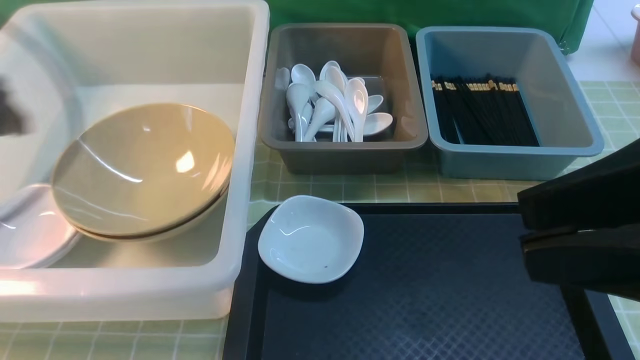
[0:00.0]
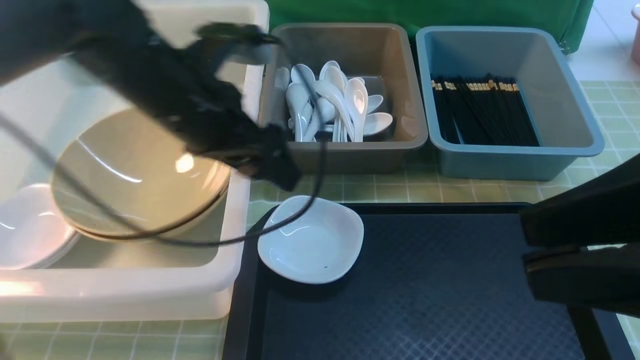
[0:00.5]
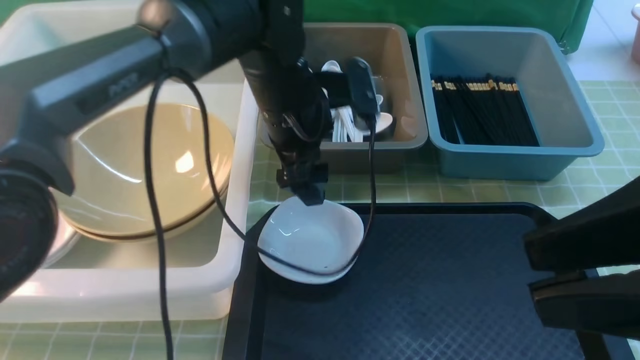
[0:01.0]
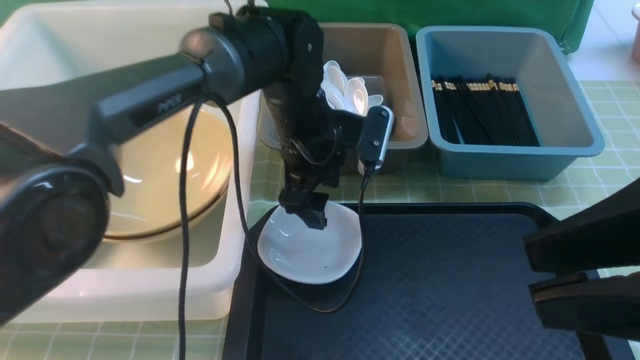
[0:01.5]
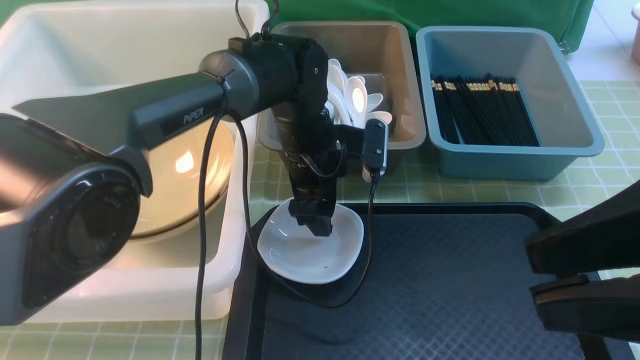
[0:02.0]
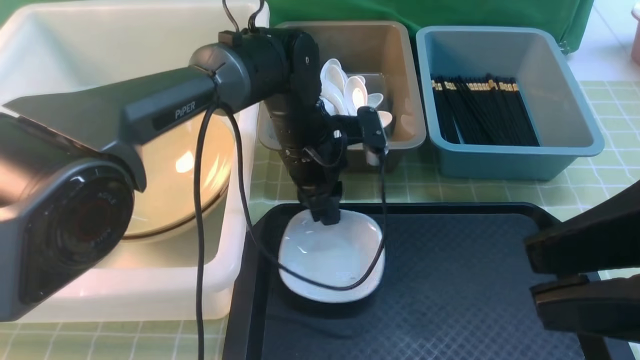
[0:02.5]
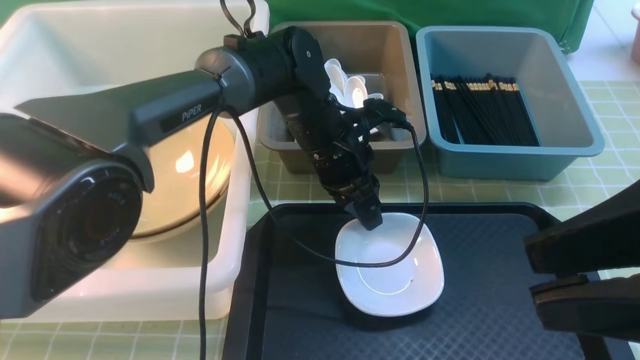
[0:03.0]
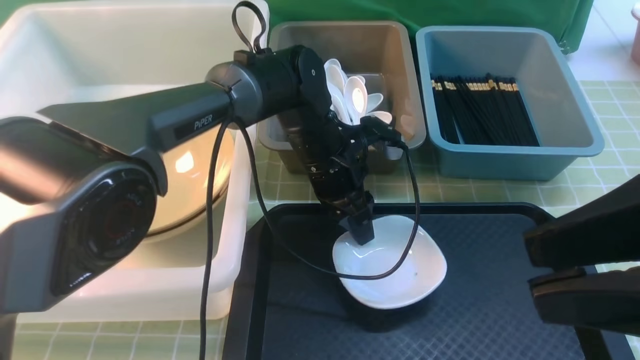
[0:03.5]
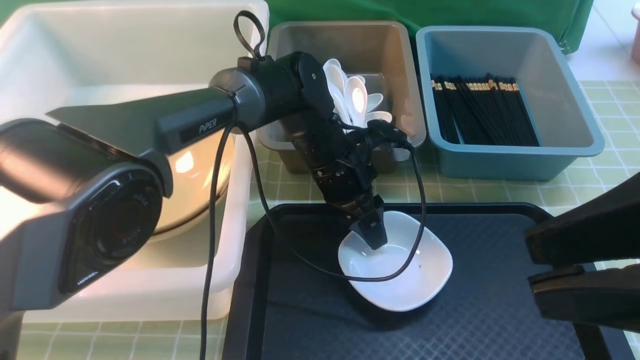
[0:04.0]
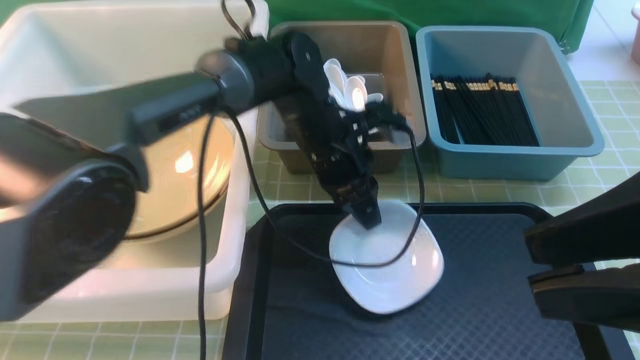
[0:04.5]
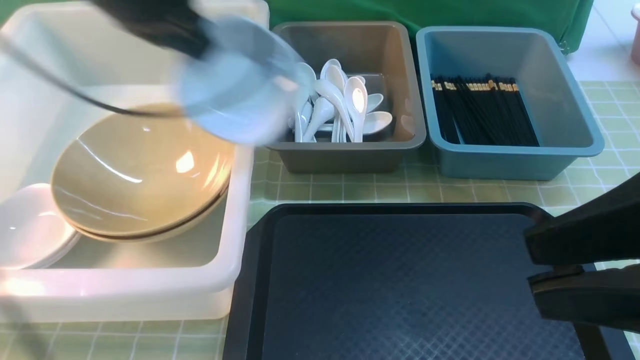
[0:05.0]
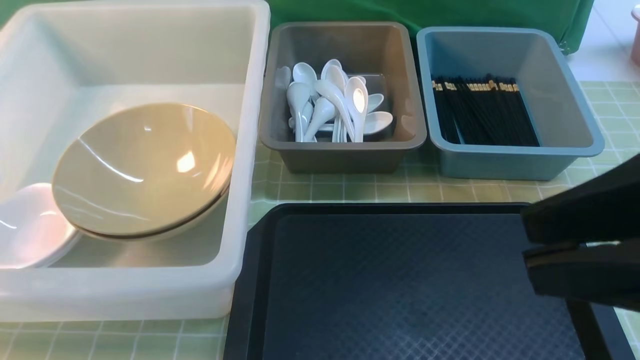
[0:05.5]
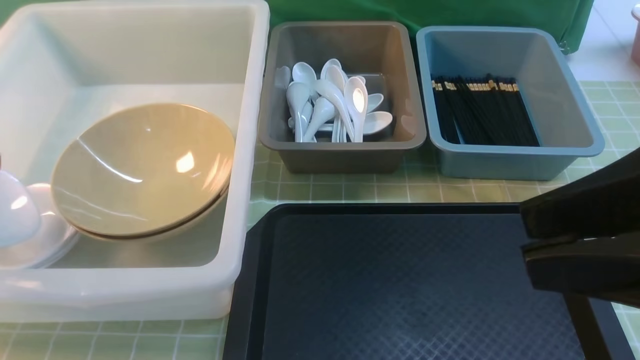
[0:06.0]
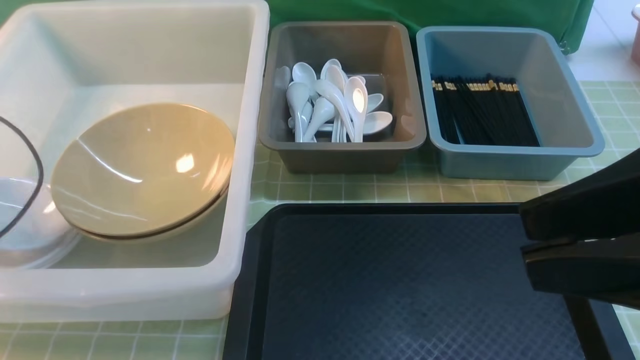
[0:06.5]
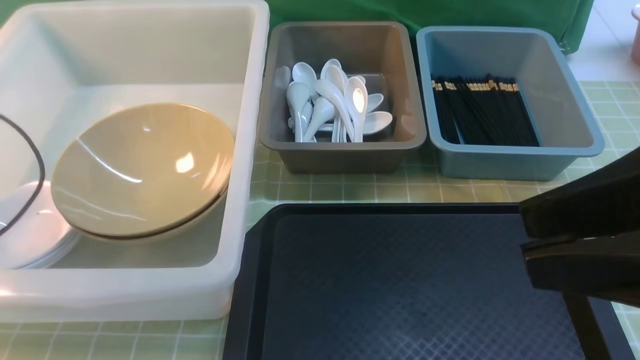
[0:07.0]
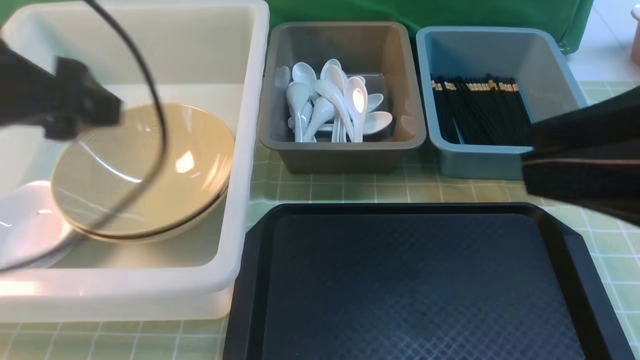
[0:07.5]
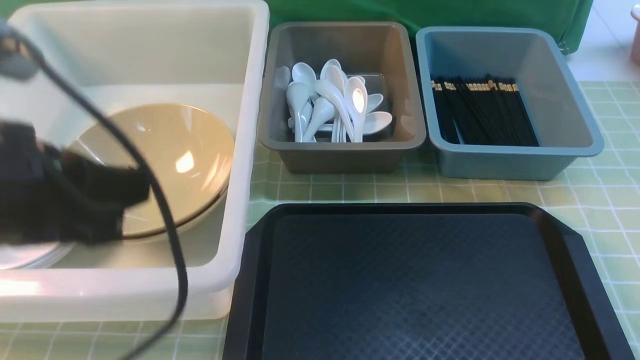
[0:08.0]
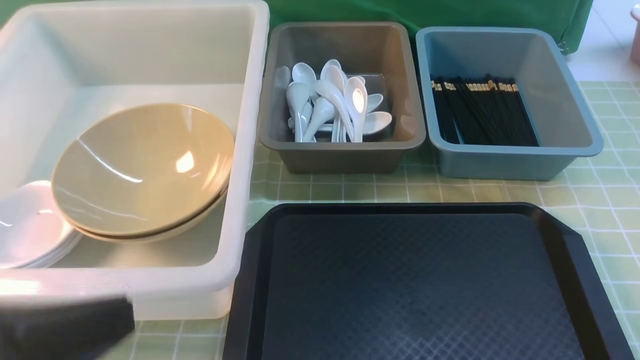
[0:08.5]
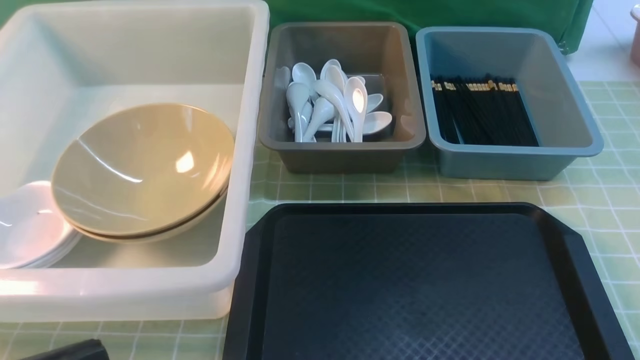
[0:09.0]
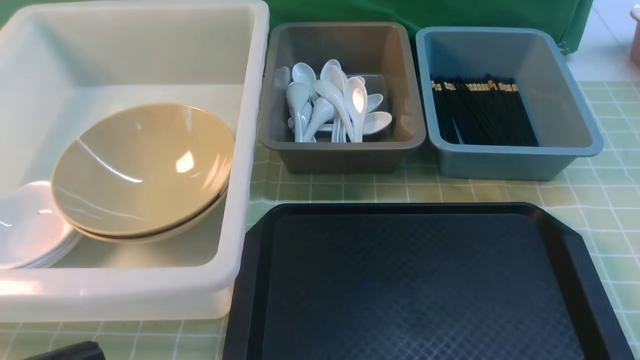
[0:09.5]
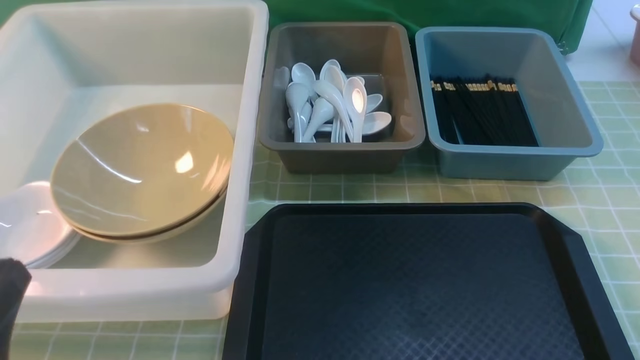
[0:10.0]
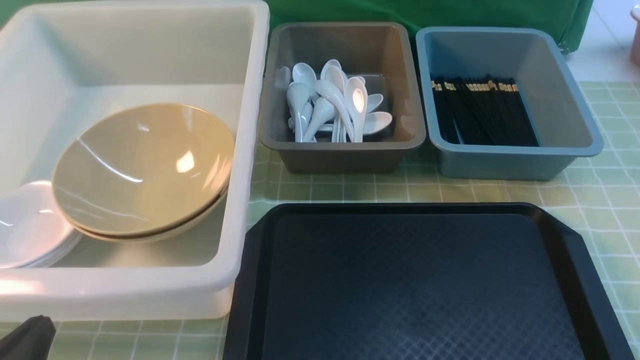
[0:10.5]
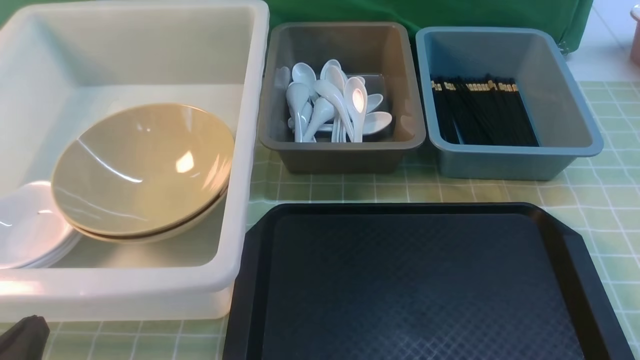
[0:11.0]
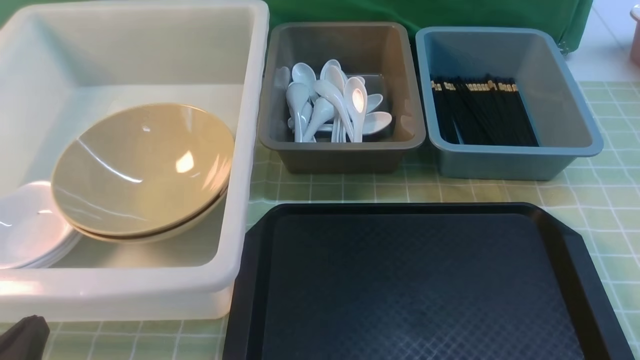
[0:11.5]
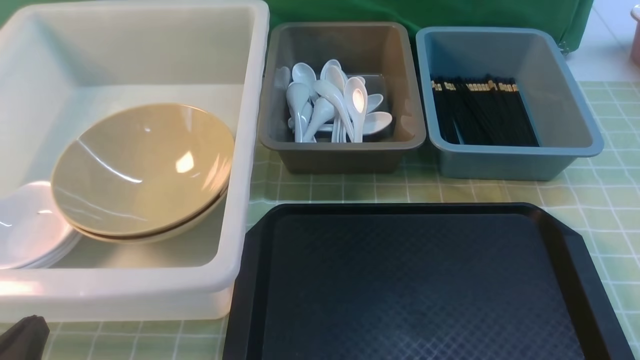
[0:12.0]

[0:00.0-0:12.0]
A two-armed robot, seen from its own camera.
Task of the whole recording: on green table put chopsticks spoon bowls plates into blue grey white boxes.
Step, 0:00.0 to 0:04.5: use the left arm to grab the plate.
Step, 0:05.0 to 0:08.0: use the left arm to put the plate into the large storage box on the left.
0:00.0 to 0:02.0: The left gripper heads to the right and downward, covering approximately 30 cm, and closes up.
0:04.0 to 0:06.0: The left gripper heads to the left, covering about 40 cm.
0:06.0 to 0:08.0: The left gripper goes about 25 cm to the right and backward, and opens, then closes once more; the right gripper moves to the right, about 5 cm, and closes up.
0:08.0 to 0:10.0: The grippers both shift downward and backward by some 15 cm.
0:10.0 to 0:12.0: The left gripper goes approximately 5 cm downward.

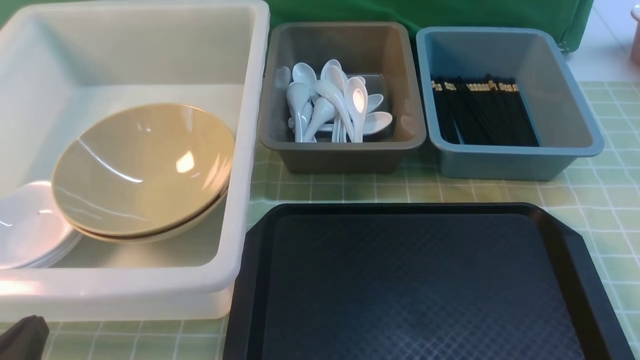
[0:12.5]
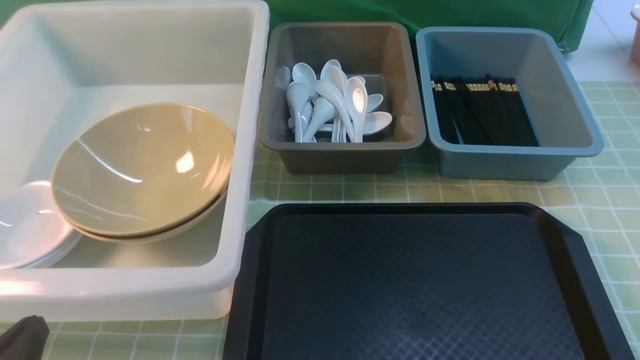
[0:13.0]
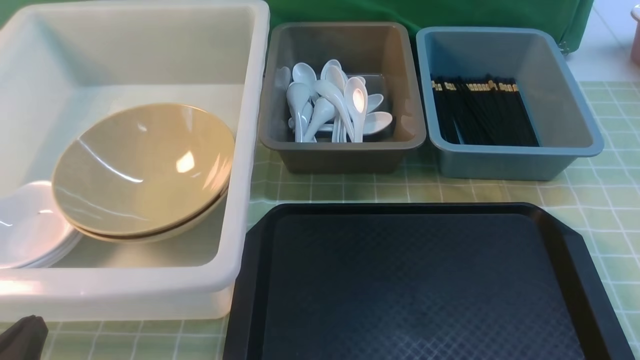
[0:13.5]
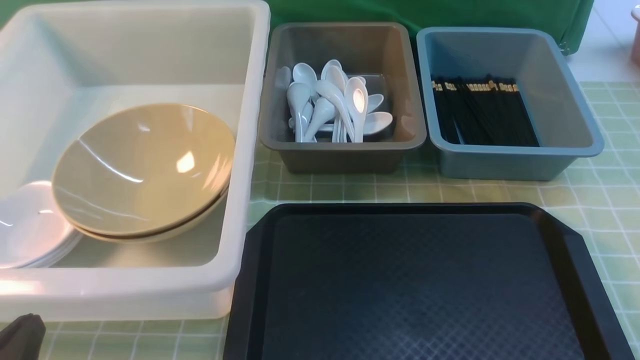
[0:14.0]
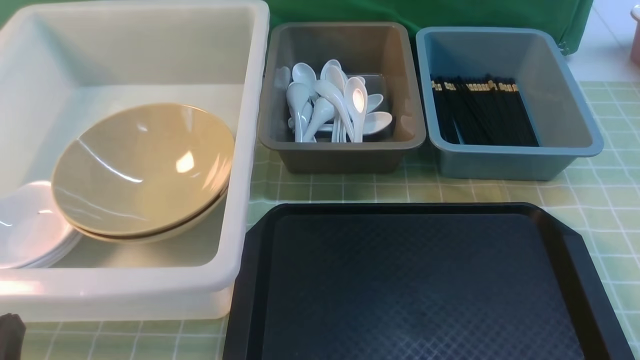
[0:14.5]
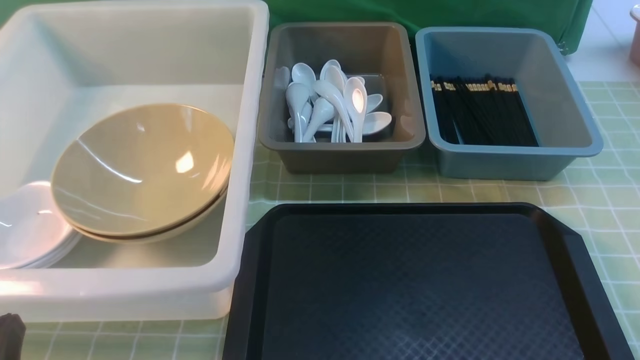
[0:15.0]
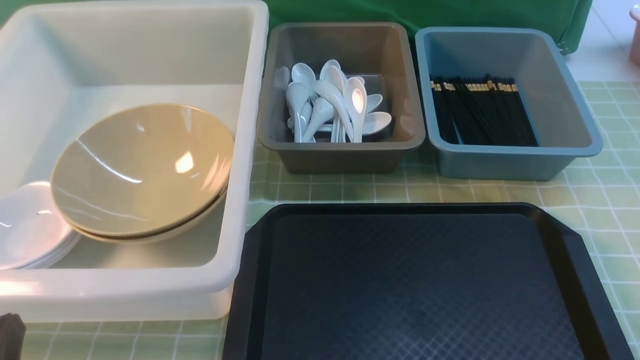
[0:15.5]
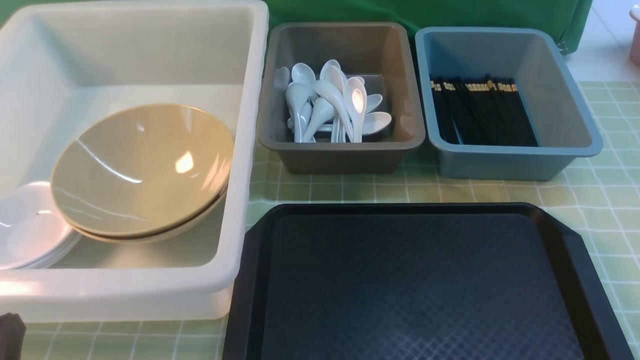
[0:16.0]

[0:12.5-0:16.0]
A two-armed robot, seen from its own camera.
Task of the whole recording: on green table put chopsticks spoon bowls plates into blue grey white boxes.
0:14.5 to 0:16.0: The two grippers keep their place.

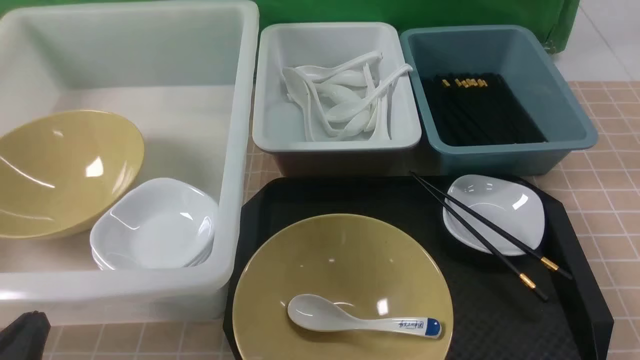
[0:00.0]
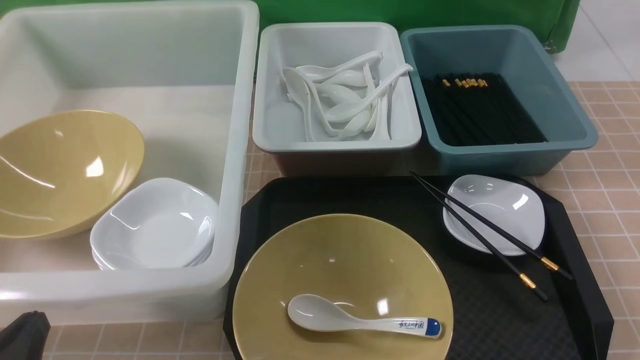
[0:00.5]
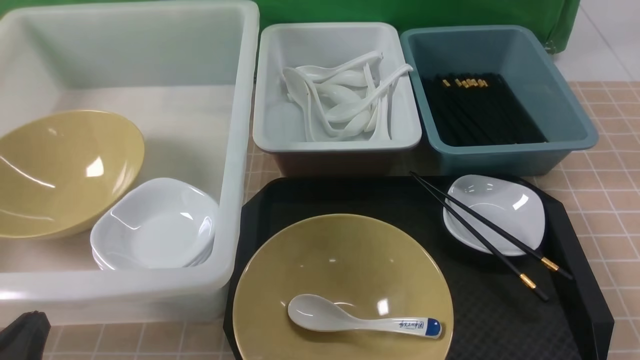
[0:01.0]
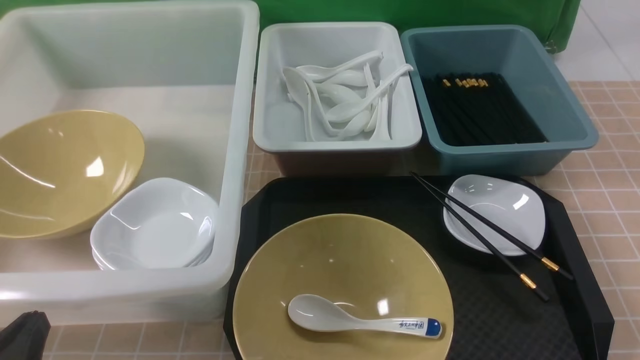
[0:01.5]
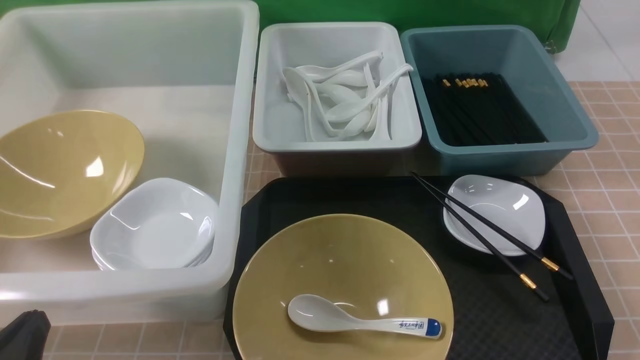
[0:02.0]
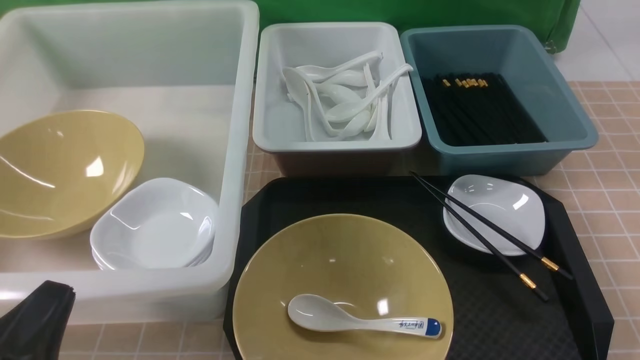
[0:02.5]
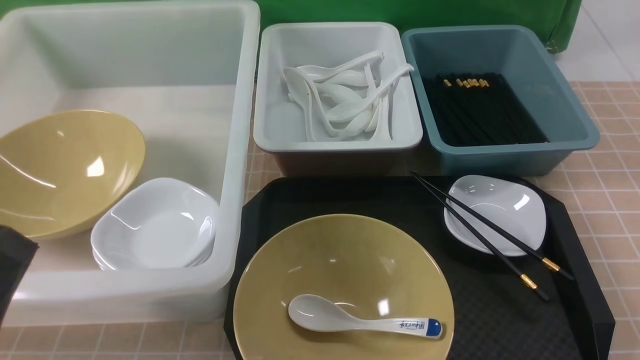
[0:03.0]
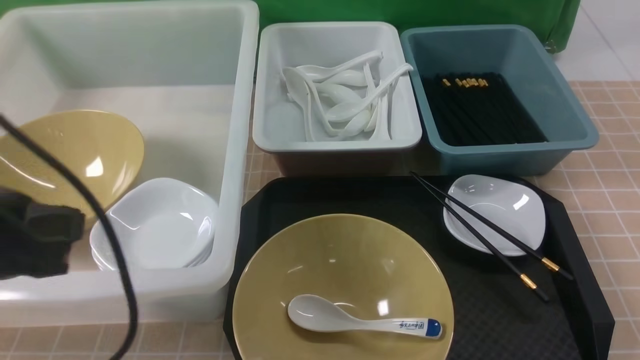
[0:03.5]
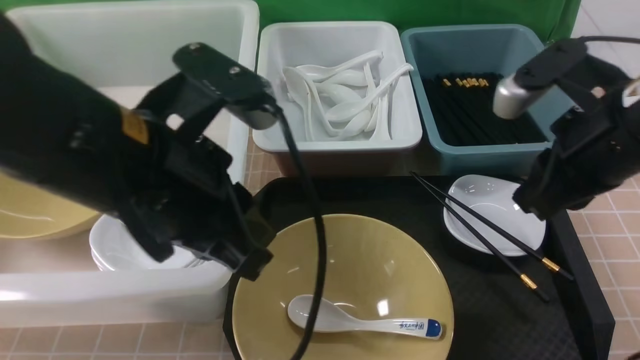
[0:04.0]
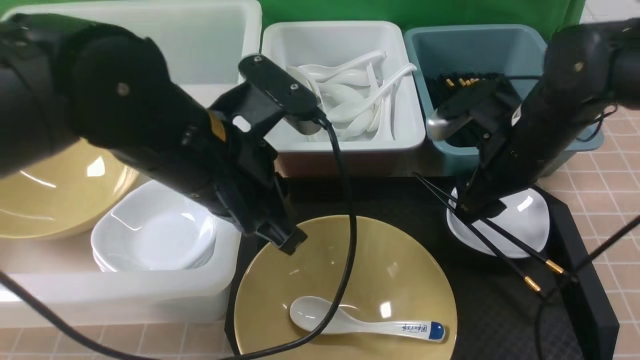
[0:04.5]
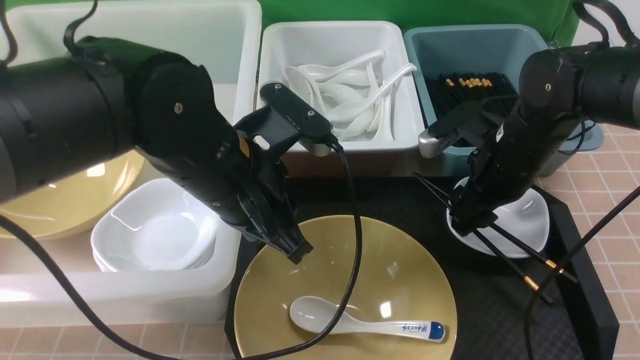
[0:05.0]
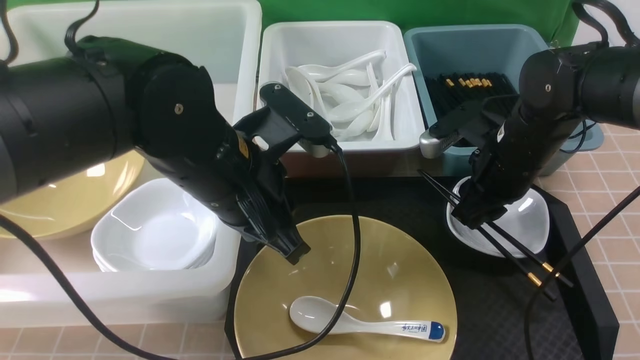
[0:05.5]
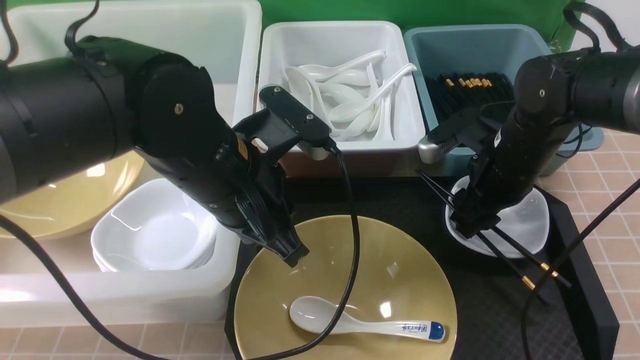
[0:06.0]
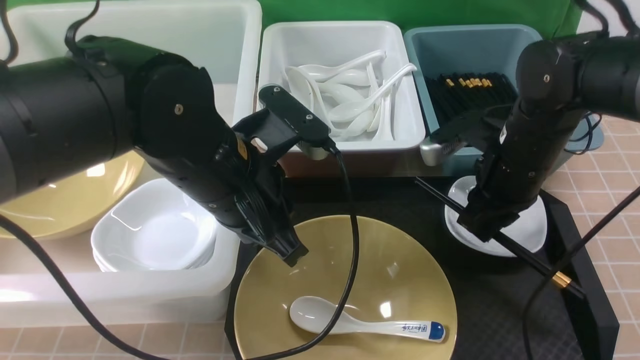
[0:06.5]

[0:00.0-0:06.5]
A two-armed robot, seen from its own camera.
Task of the whole recording: on brown table put chopsticks spoon bowls plates into blue grey white boxes.
0:02.0 to 0:04.5: The right gripper heads forward and to the left, covering roughly 30 cm, and opens up; the left gripper is displaced forward, to the right and upward by roughly 30 cm.
0:04.5 to 0:06.5: The right gripper closes.
